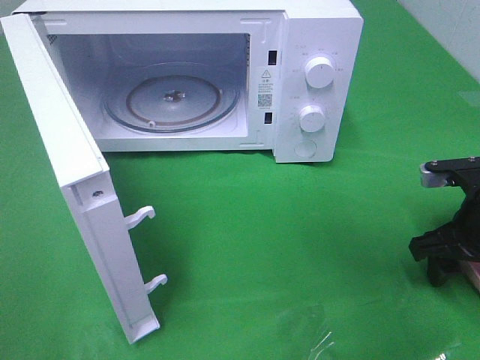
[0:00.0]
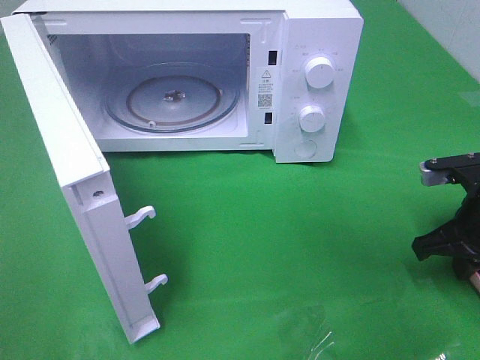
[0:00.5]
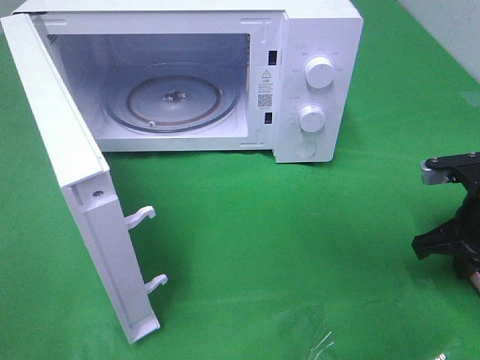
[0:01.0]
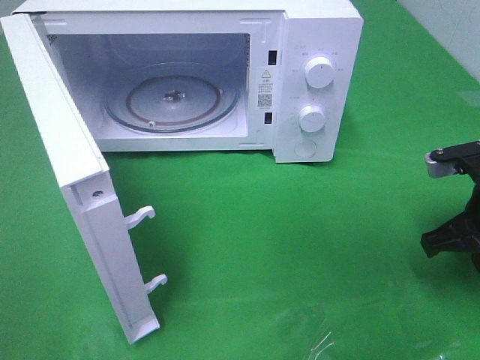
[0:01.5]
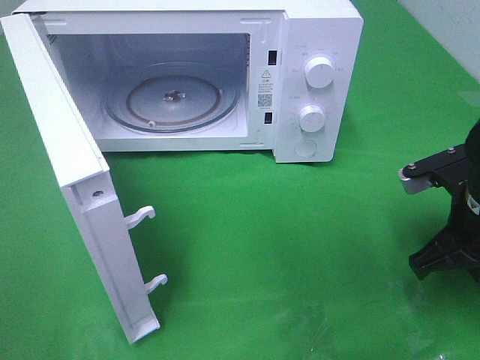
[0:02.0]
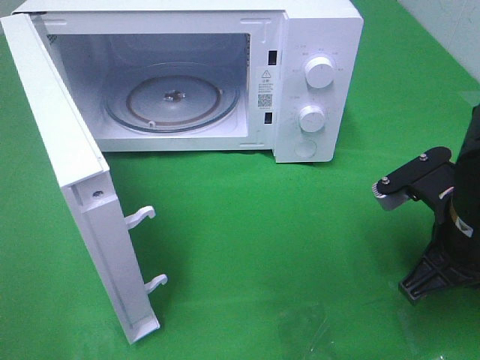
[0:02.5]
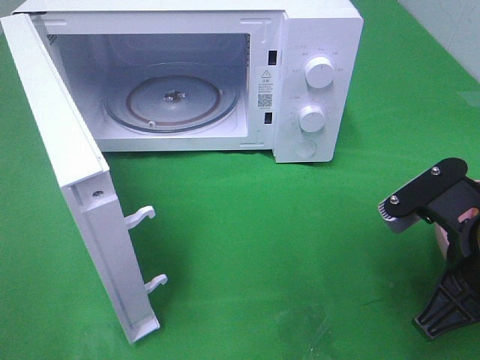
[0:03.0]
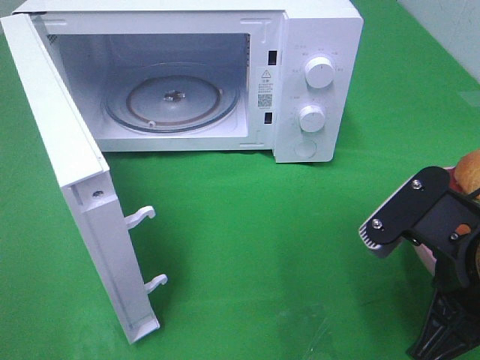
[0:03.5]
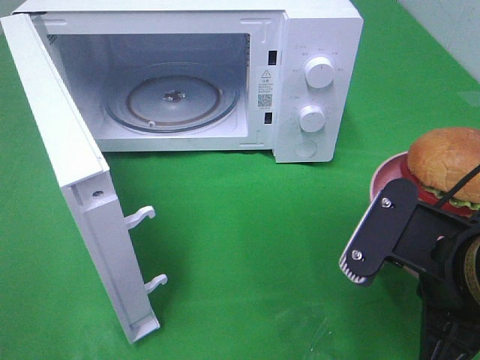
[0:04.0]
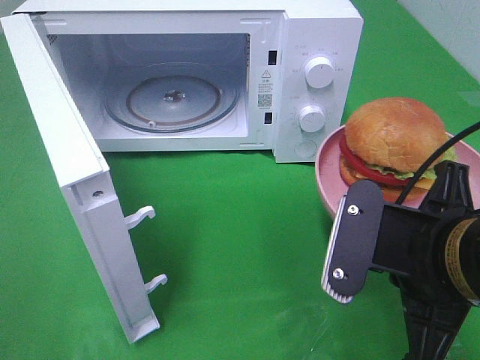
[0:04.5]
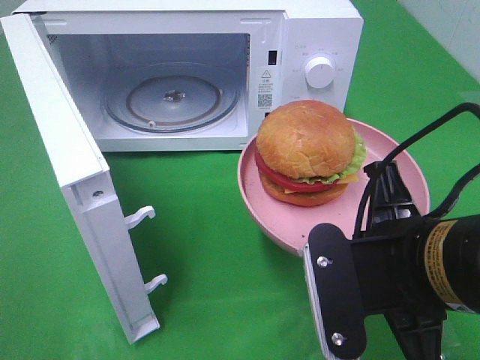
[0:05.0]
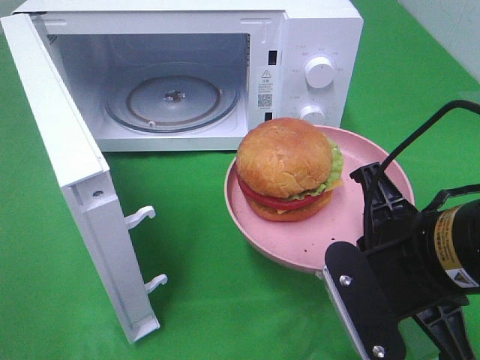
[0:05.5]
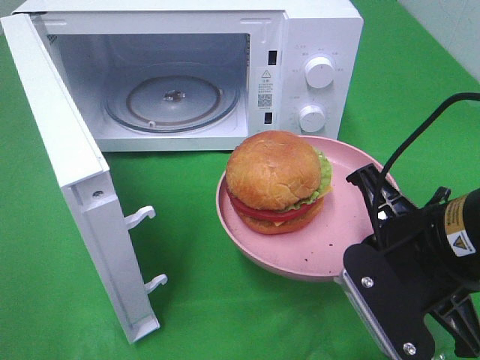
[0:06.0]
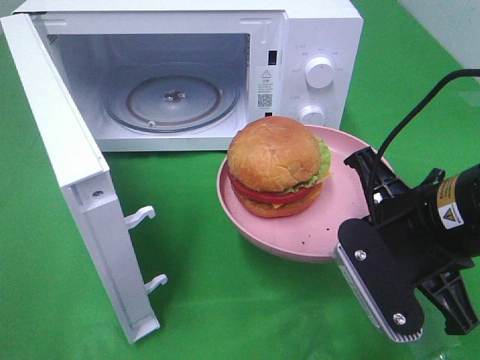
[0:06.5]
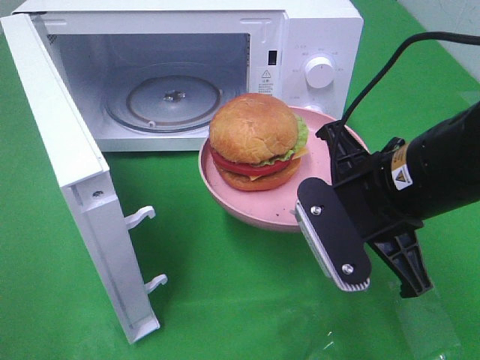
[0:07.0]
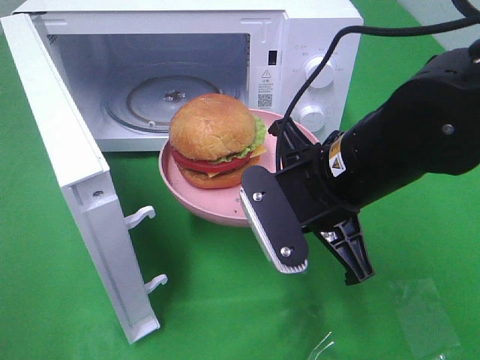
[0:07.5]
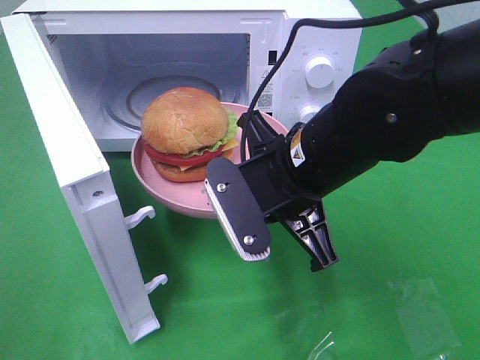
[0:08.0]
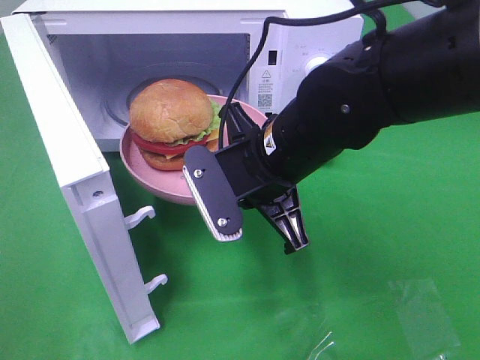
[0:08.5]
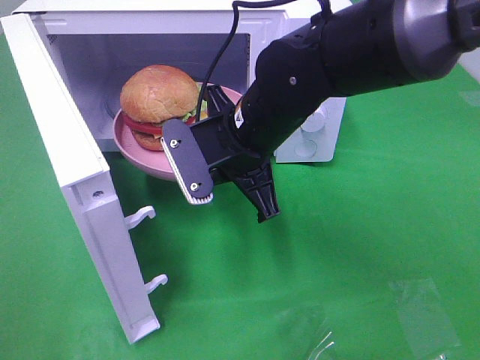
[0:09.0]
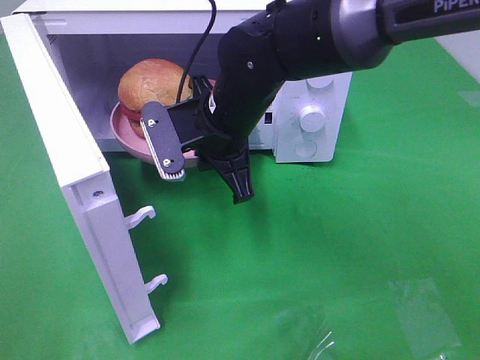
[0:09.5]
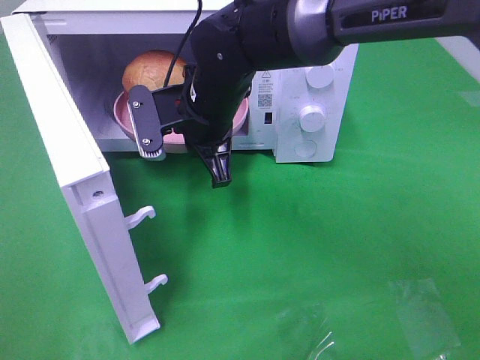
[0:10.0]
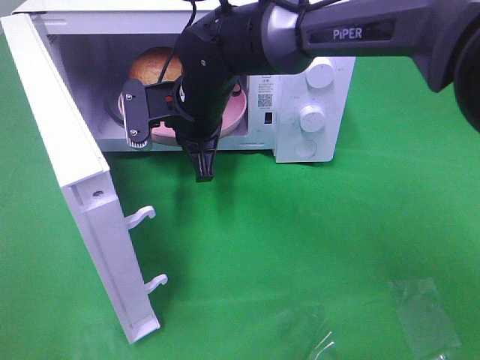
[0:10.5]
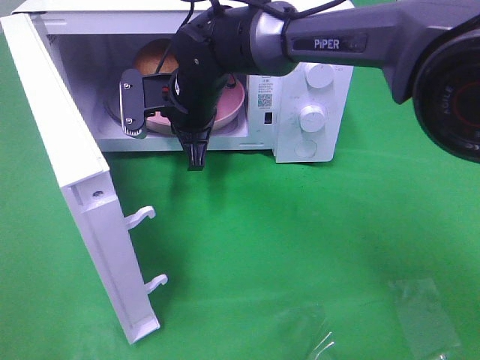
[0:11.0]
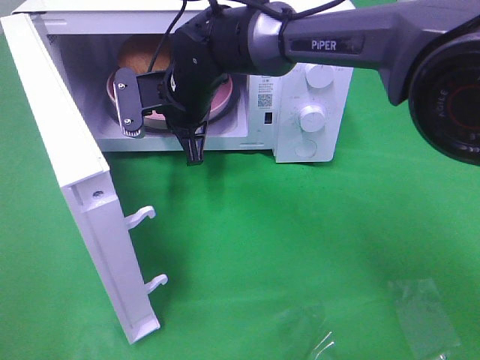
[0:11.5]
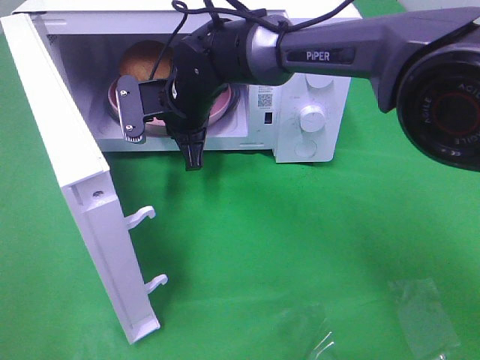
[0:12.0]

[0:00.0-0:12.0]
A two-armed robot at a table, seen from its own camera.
Task of the whole recording: Heat the burger.
0:00.0 to 0:02.0: The right gripper moves about 5 cm, and closes up.
0:02.0 to 0:04.0: The right gripper heads backward and to the left, covering about 15 cm.
0:06.0 to 0:08.0: The right gripper travels to the left and forward by approximately 10 cm.
0:08.0 to 0:10.0: The right gripper goes some 15 cm forward and to the left.
0:10.0 to 0:12.0: The right gripper goes about 5 cm forward.

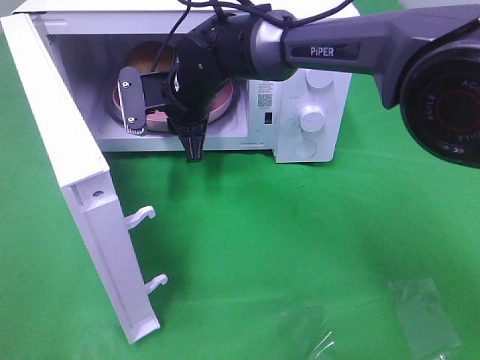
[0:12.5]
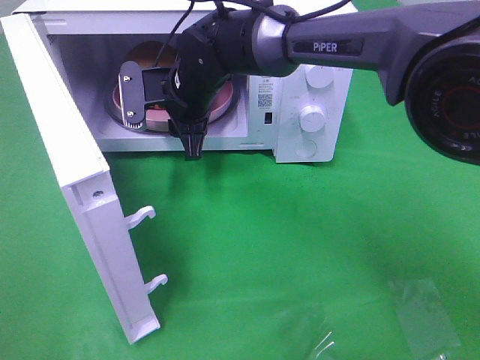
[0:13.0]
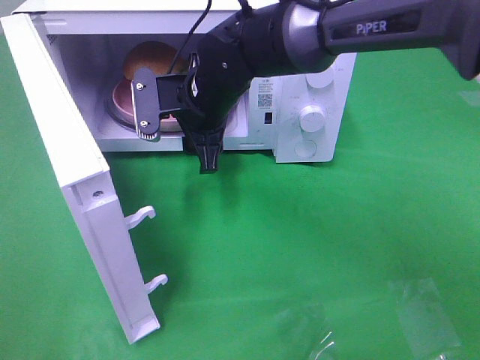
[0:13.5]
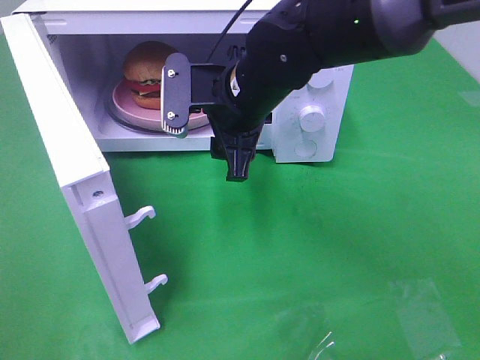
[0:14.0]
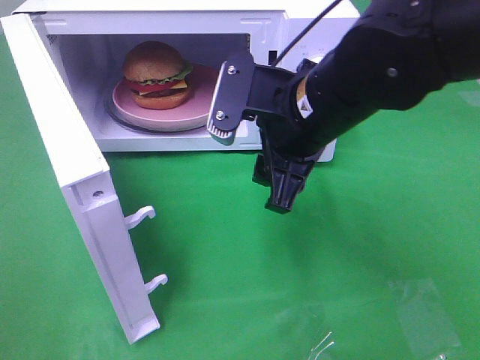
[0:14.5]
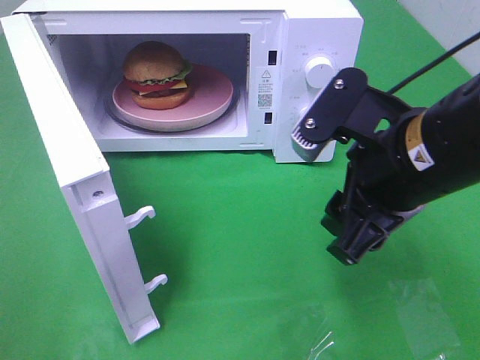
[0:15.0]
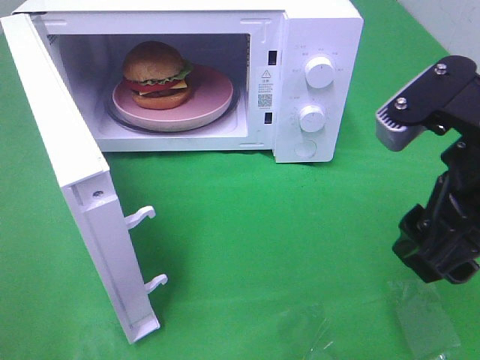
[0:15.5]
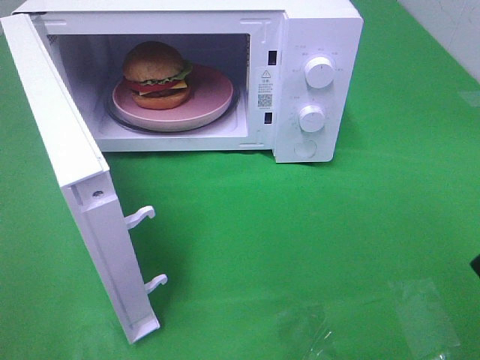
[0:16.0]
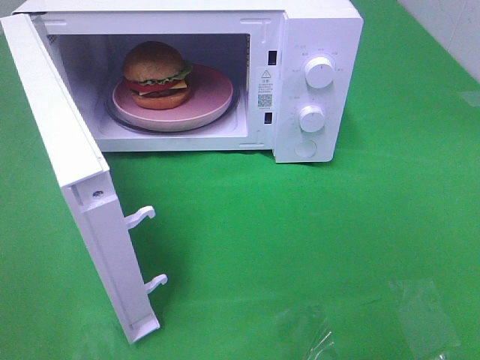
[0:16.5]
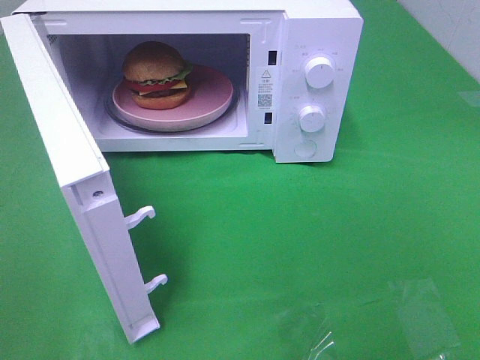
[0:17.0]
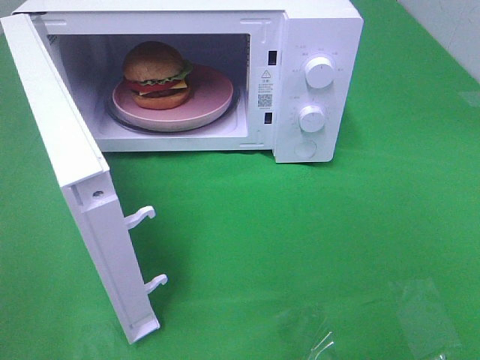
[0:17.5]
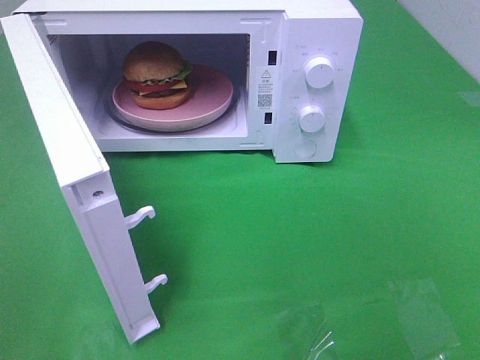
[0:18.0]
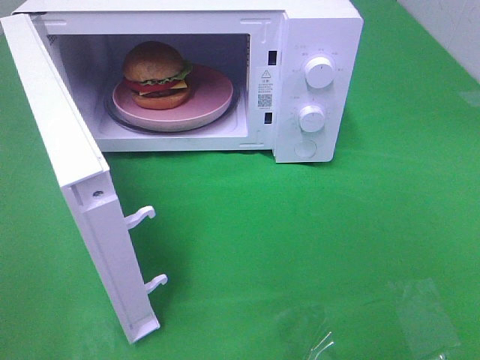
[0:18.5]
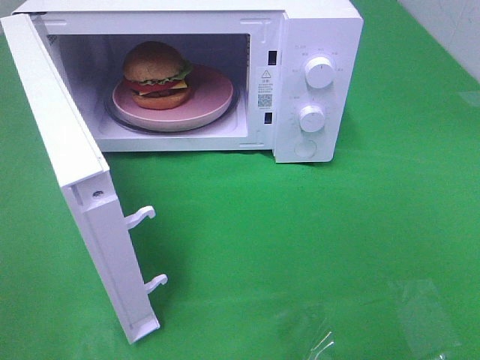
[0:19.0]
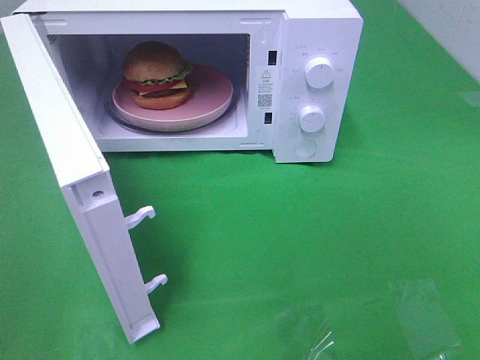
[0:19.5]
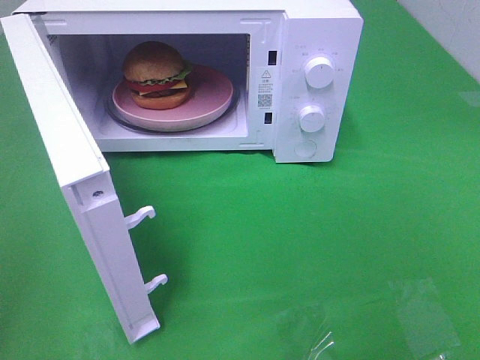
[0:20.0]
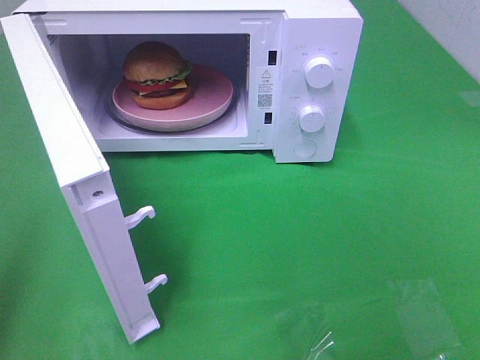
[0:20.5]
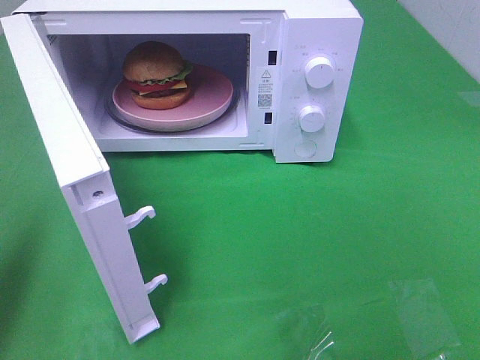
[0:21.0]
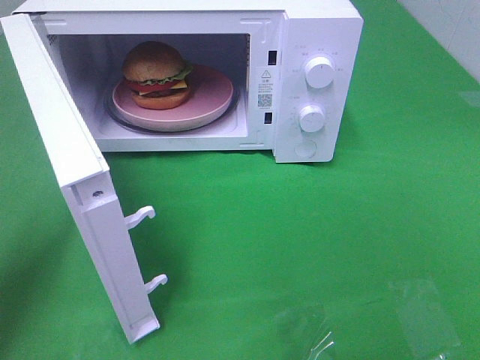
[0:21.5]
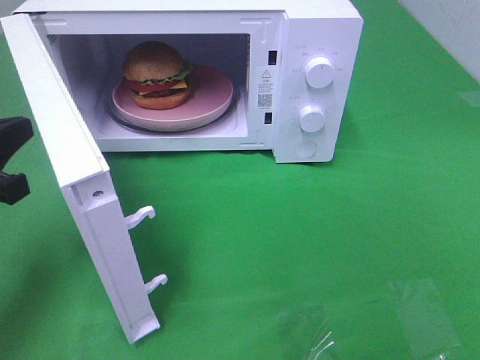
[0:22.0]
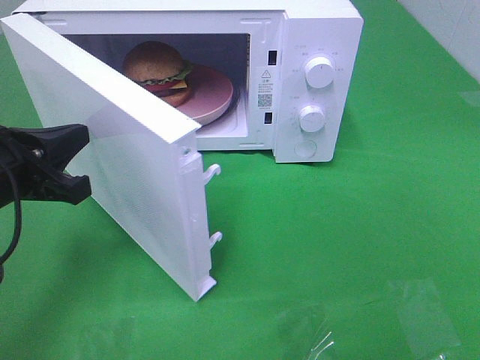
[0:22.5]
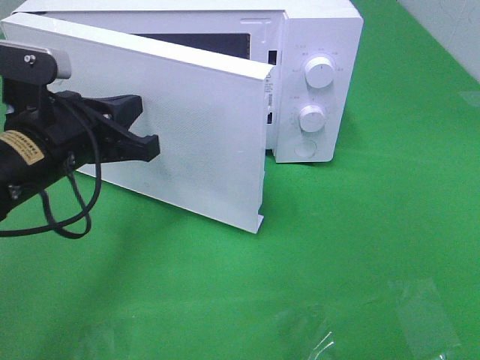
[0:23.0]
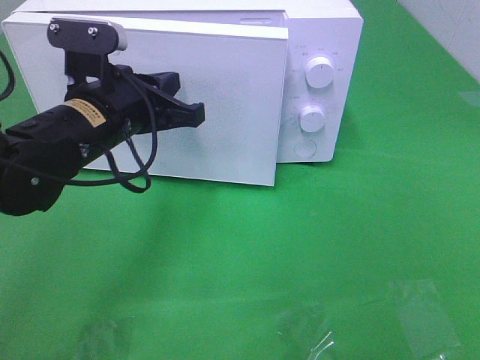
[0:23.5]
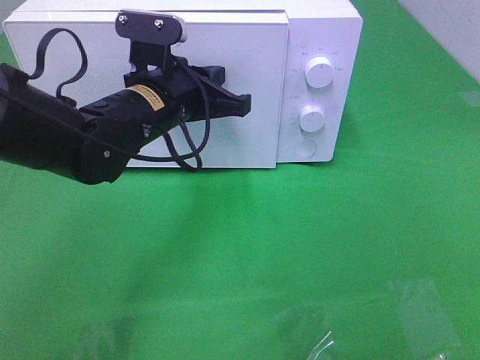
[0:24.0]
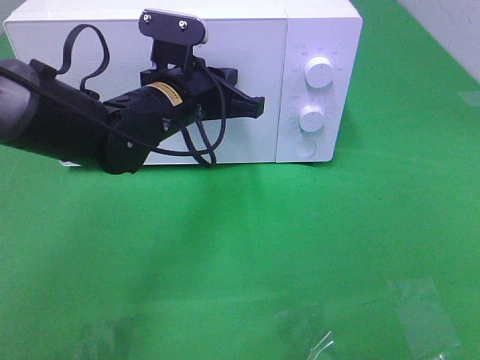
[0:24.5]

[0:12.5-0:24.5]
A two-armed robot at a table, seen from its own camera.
Task of the whole recording: Heat the burger.
0:12.5 to 0:14.5: The right gripper is displaced backward, to the right and upward by about 20 cm.
0:14.5 to 0:16.5: The right gripper heads to the right and backward, covering about 30 cm.
0:20.5 to 0:22.5: The left gripper heads forward, downward and to the right, covering about 20 cm.
0:22.5 to 0:24.5: The left gripper heads to the right and forward, covering about 20 cm.

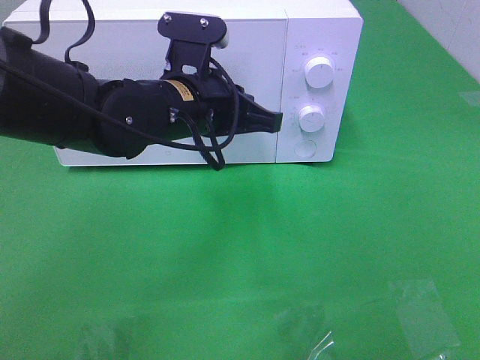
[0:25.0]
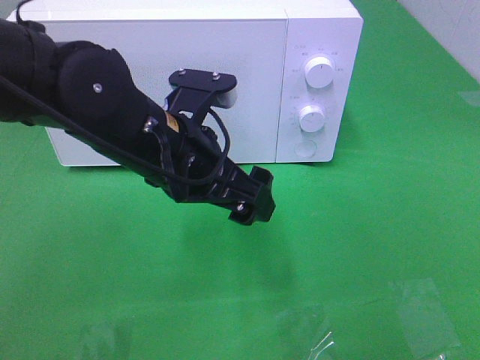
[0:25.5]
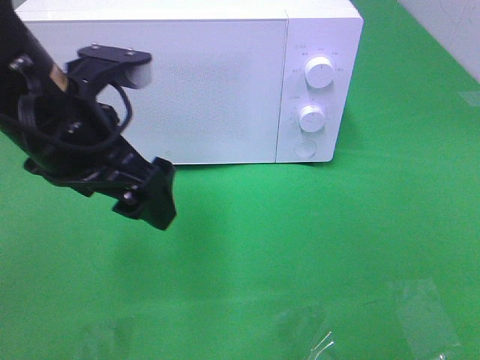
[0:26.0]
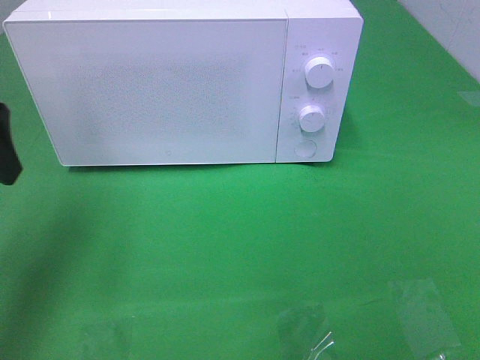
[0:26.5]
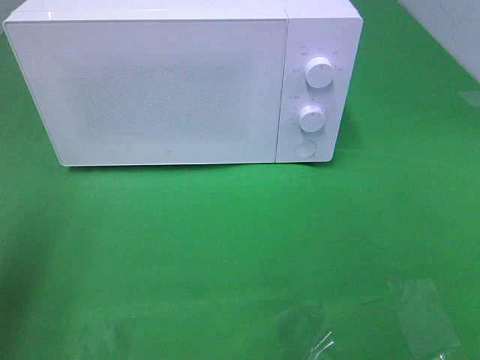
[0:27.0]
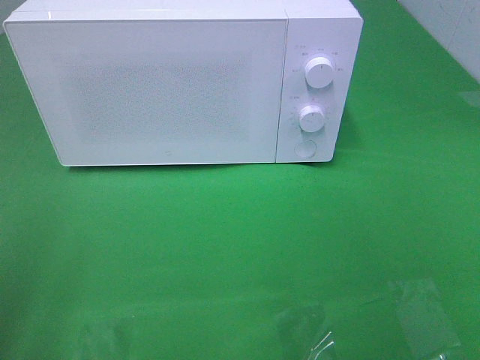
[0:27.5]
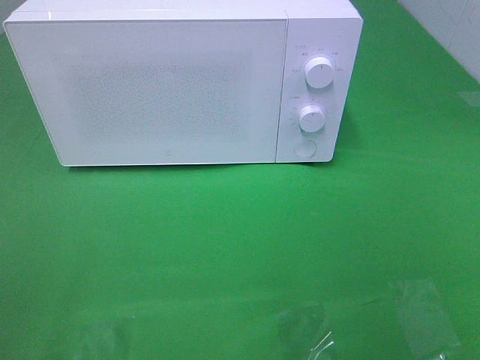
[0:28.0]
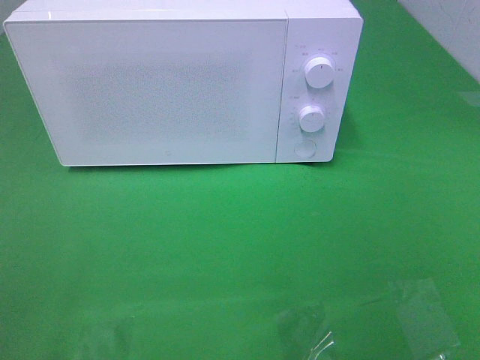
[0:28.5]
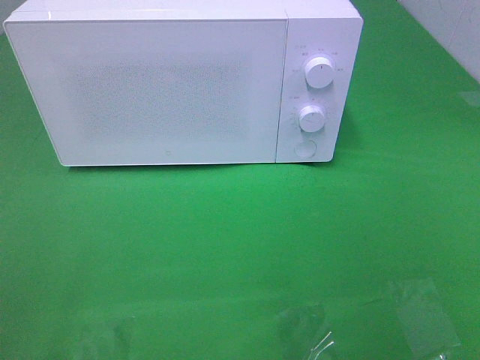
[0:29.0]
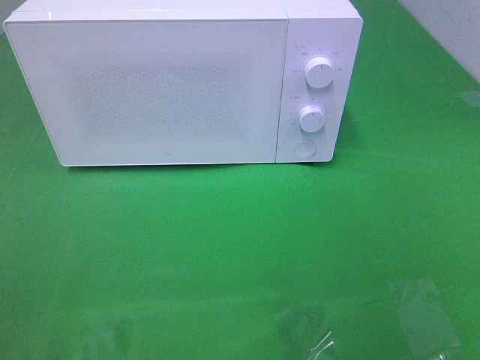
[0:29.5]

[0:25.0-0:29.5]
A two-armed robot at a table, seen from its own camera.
Task of the whole recording: Heat the burger.
0:25.0 to 0:27.0: The left gripper moves to the left and backward, approximately 30 cm, and opens.
0:27.0 to 0:29.5: The left gripper shifts approximately 15 cm backward.
